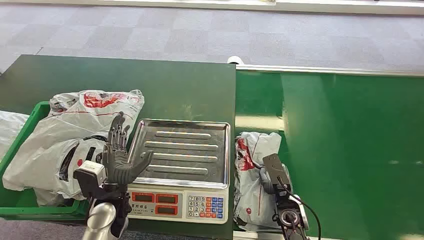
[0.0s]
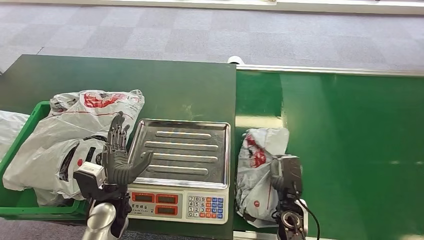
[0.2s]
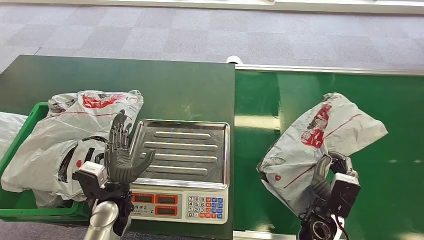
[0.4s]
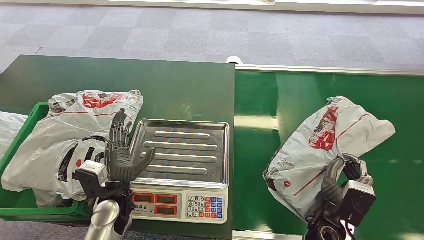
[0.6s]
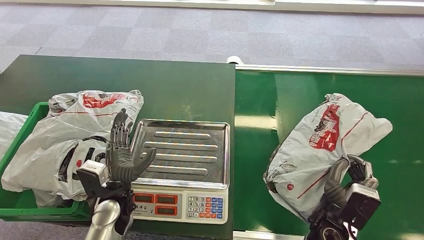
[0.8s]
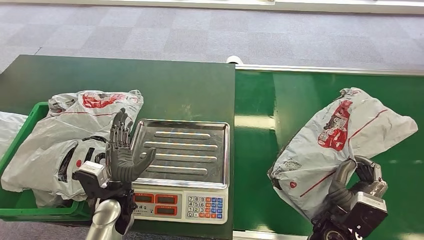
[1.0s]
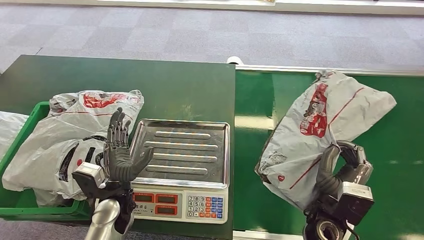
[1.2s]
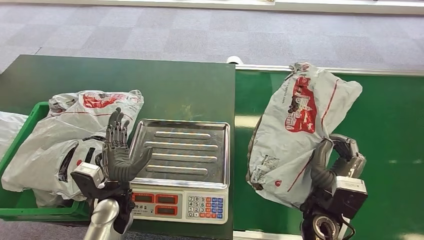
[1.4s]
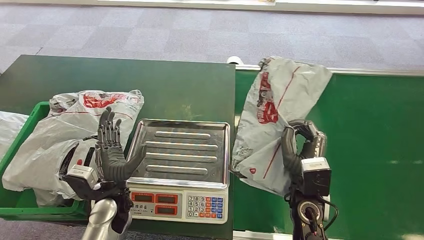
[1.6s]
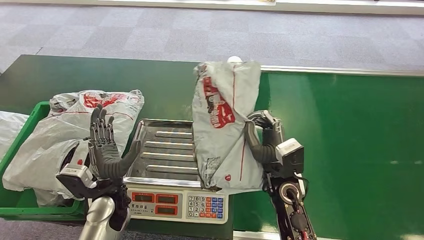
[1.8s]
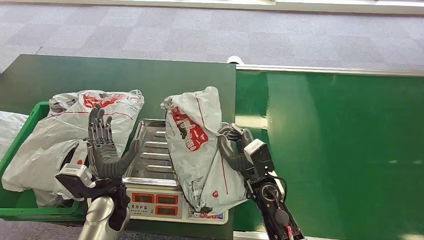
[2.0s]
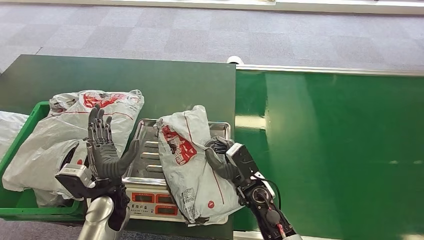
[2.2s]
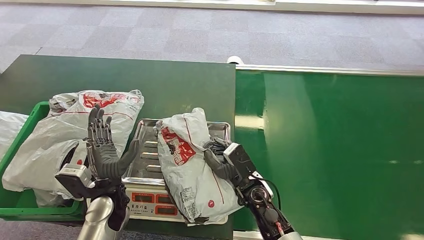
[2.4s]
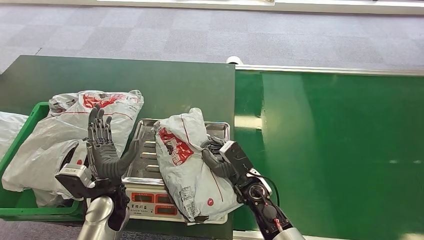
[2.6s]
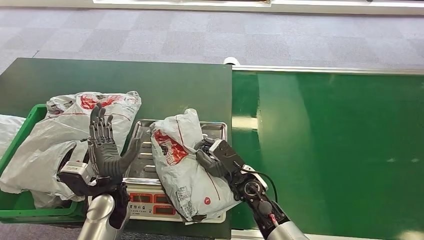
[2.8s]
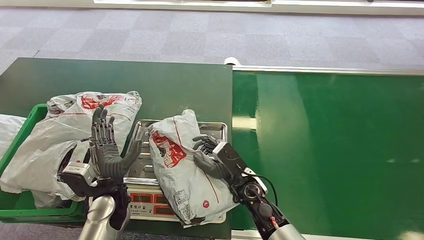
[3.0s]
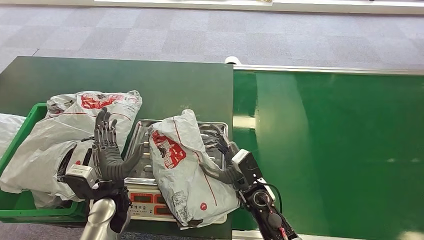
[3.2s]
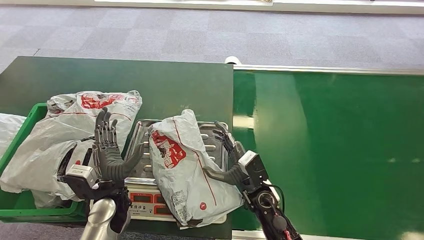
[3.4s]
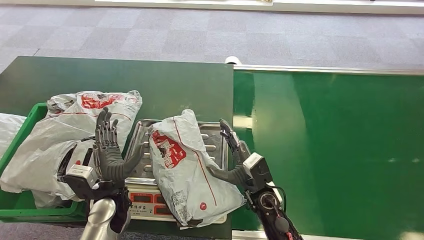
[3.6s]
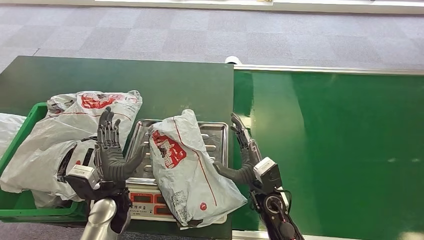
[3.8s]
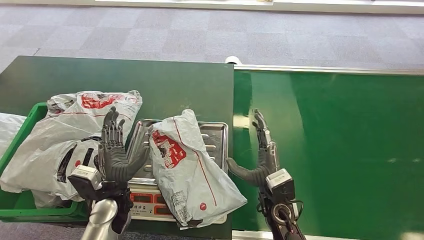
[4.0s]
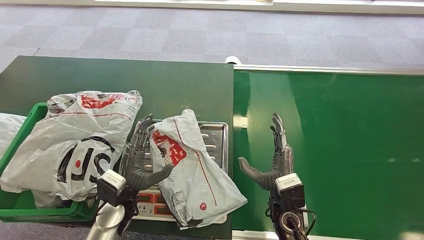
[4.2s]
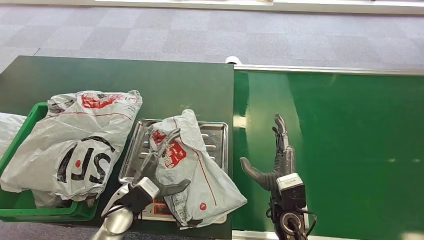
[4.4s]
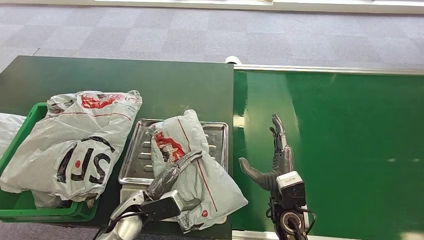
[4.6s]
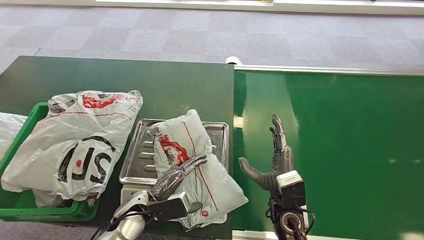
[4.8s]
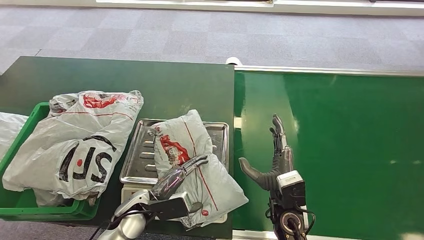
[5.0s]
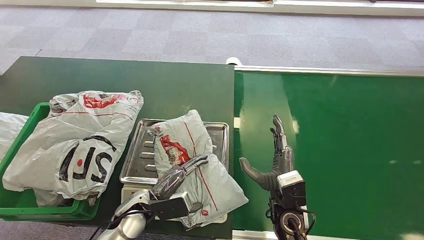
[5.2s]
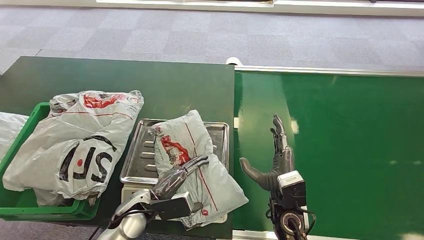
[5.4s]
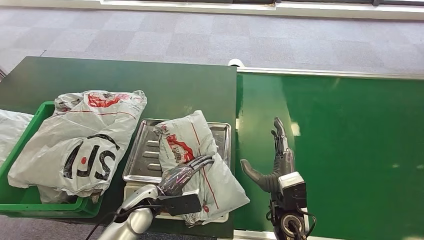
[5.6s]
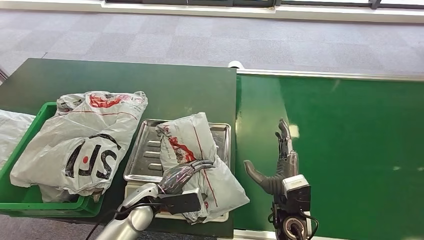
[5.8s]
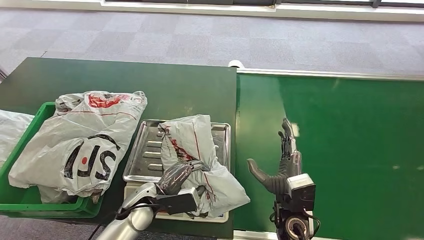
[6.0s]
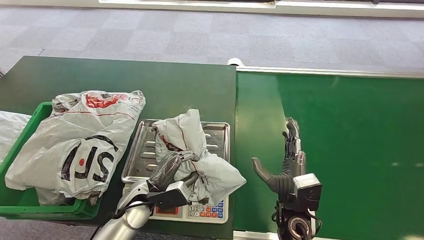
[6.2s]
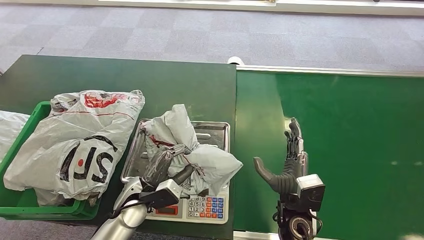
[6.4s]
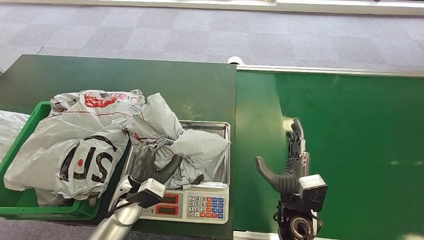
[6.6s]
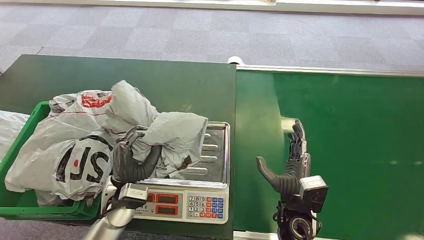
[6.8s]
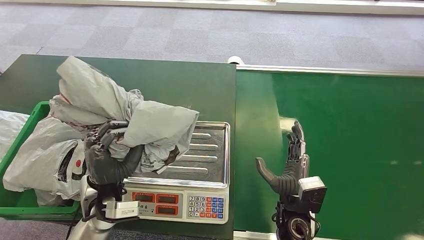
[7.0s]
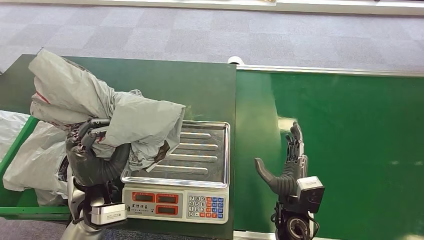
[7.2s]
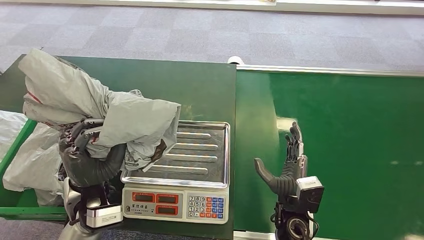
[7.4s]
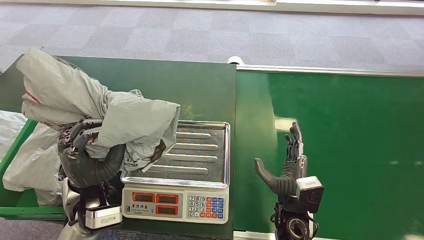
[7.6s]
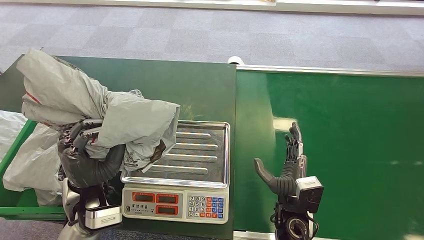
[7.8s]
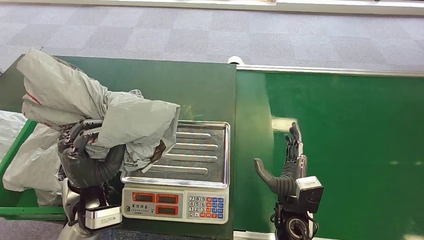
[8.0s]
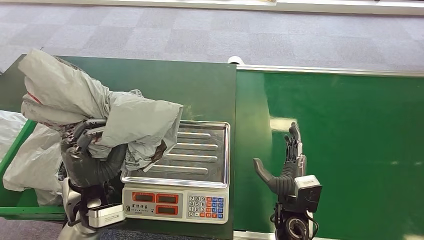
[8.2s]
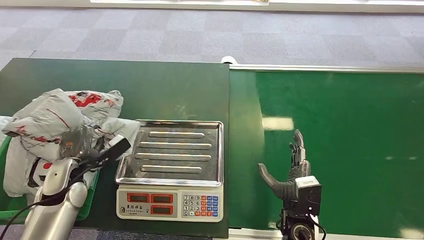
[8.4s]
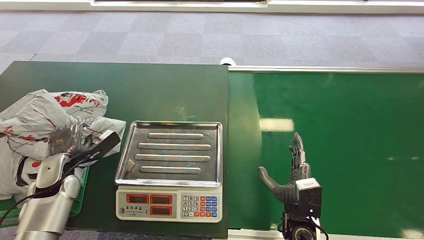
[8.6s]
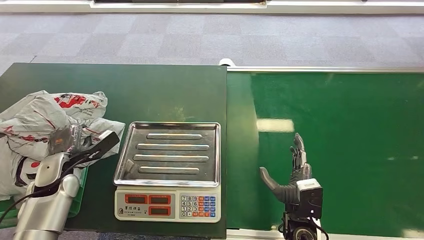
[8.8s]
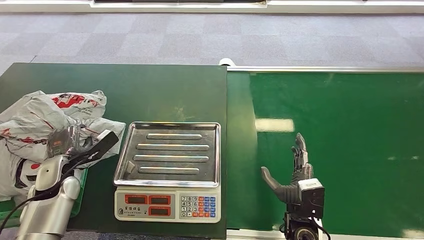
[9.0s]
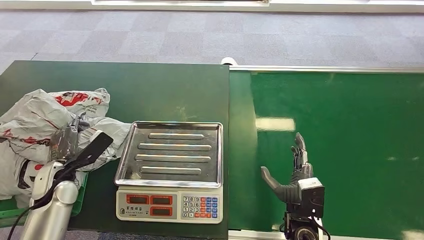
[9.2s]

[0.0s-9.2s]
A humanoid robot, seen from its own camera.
Step, 0.0s to 1.2s: Pick up the package from the conveyor belt.
Step, 2.0s to 3.2s: Place the package onto the inbound machine.
Step, 6.0s to 7.0s: Pick up the package from the inbound machine.
Step, 8.2s to 9.2s: Place the package into the parcel locker.
